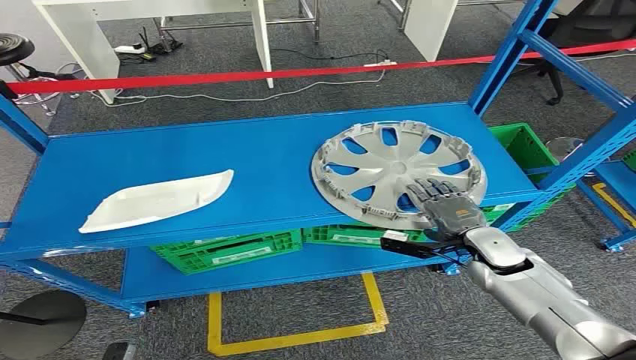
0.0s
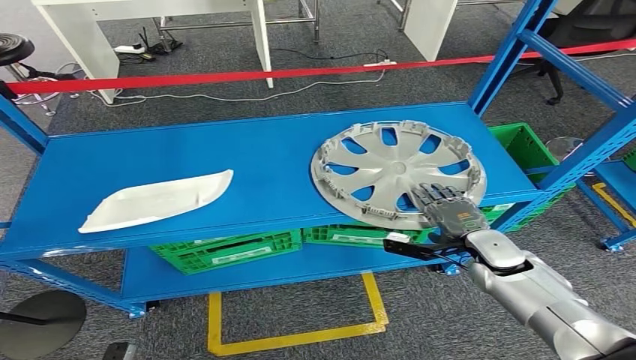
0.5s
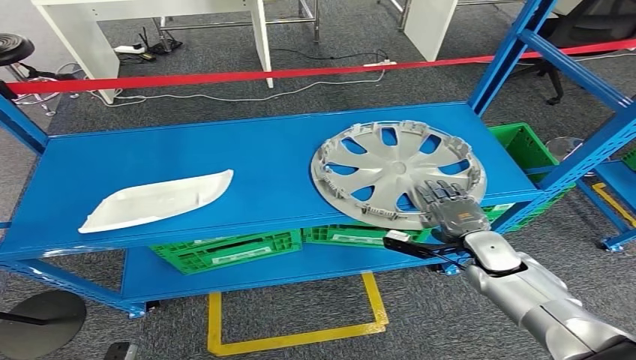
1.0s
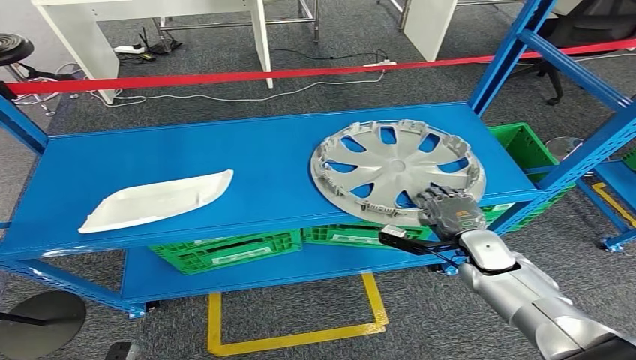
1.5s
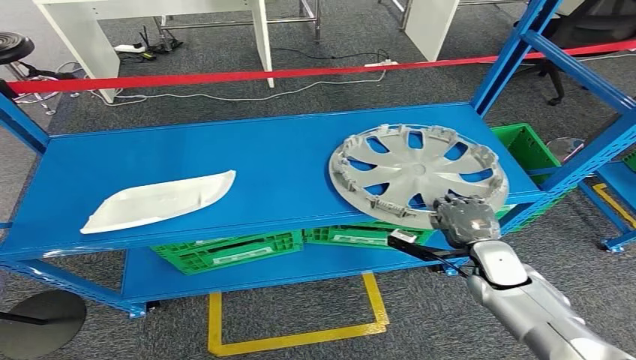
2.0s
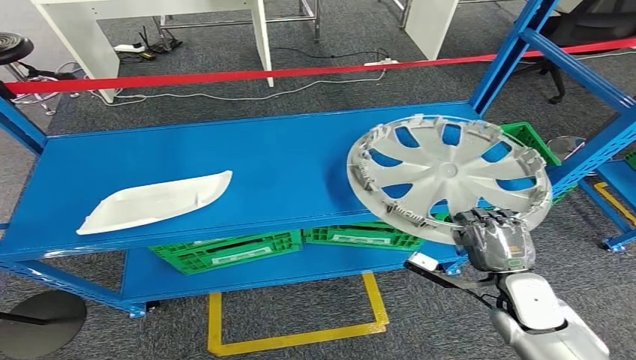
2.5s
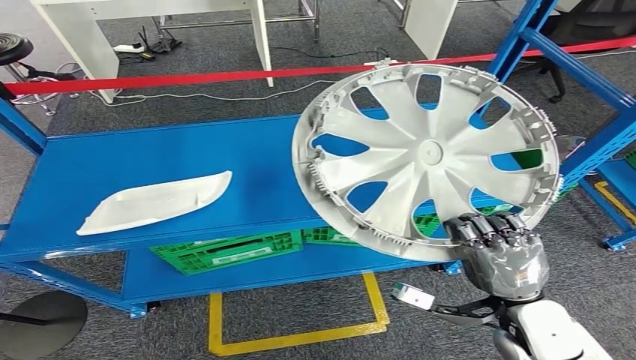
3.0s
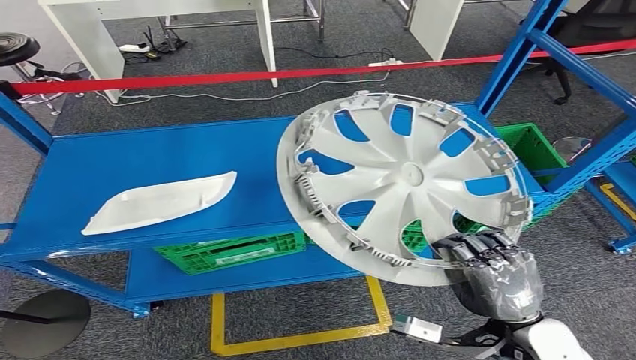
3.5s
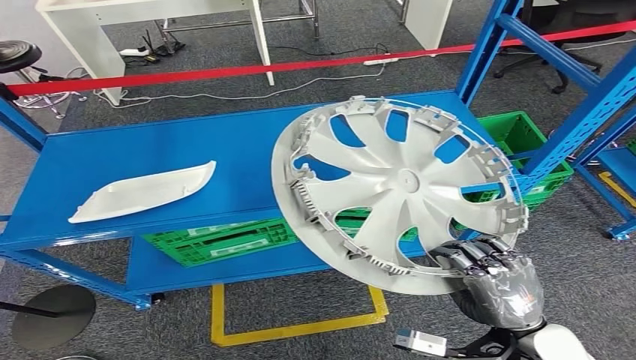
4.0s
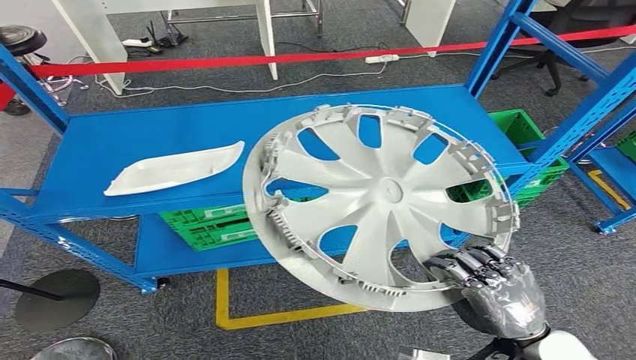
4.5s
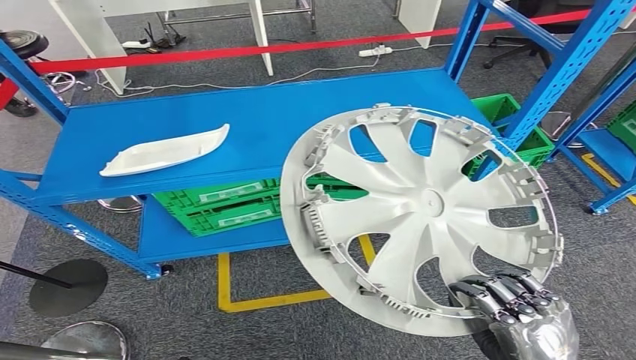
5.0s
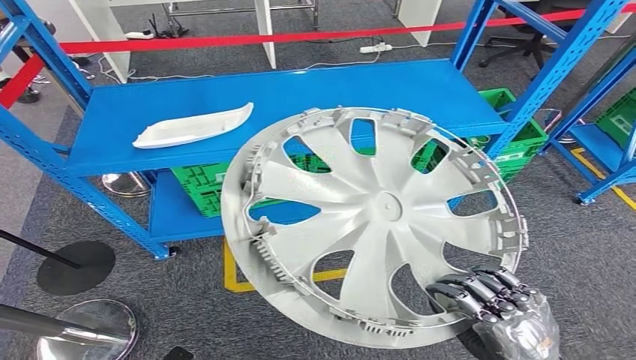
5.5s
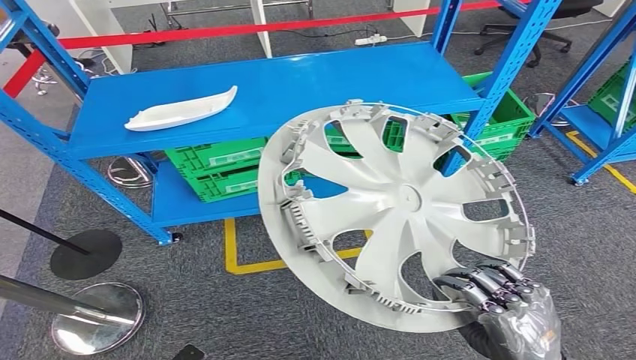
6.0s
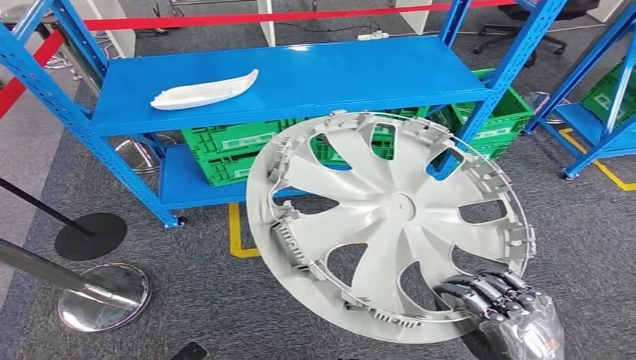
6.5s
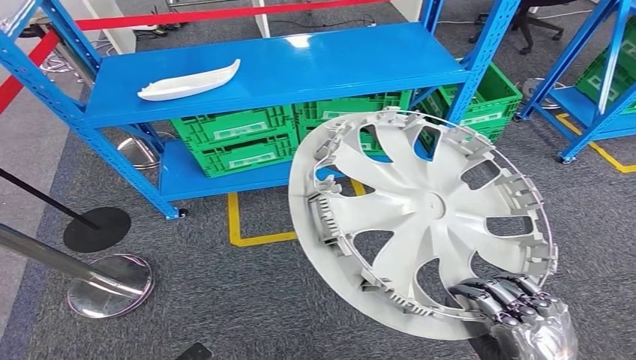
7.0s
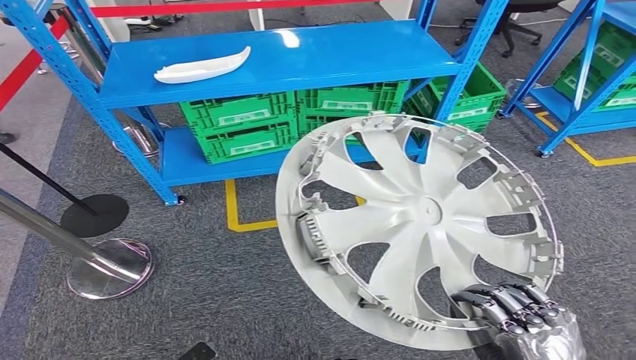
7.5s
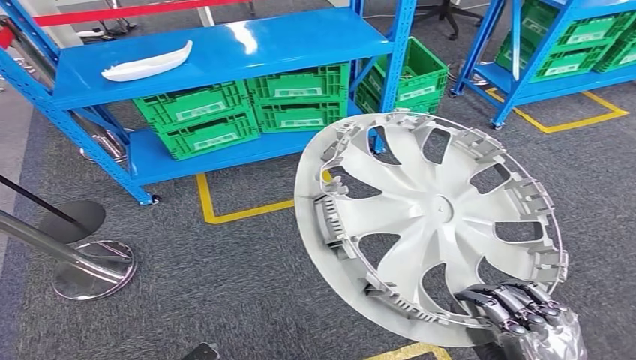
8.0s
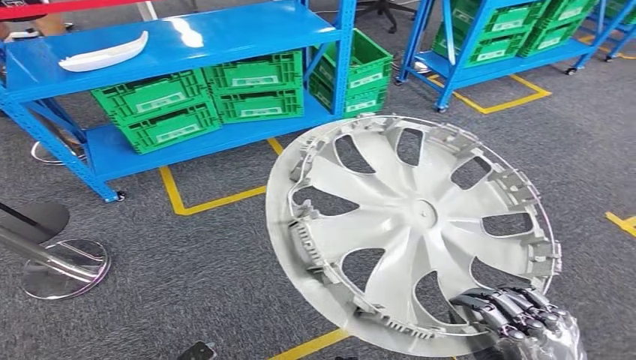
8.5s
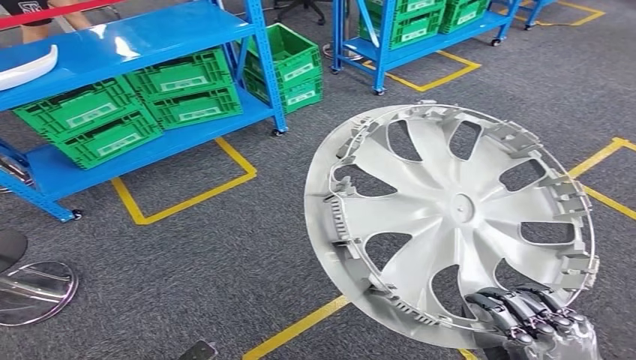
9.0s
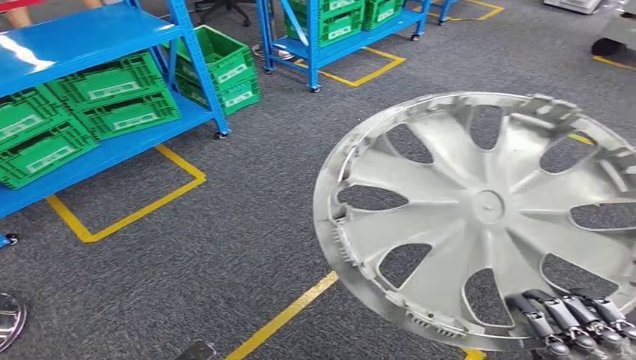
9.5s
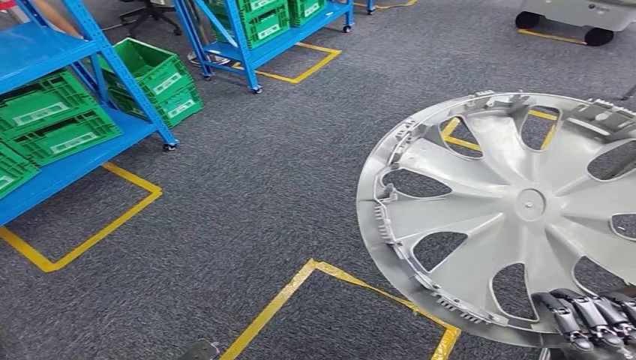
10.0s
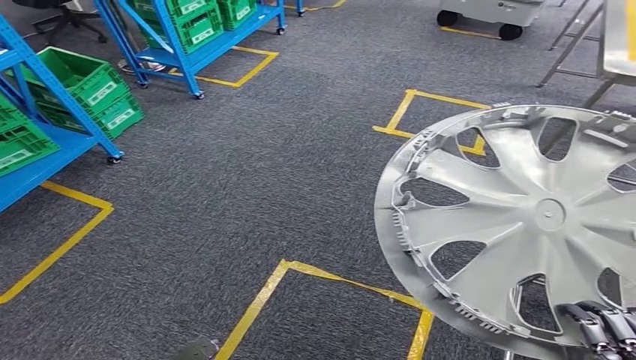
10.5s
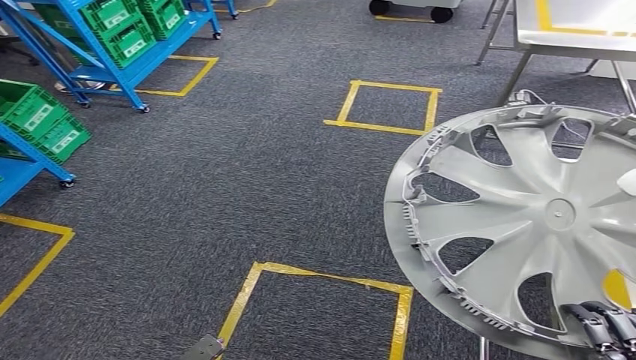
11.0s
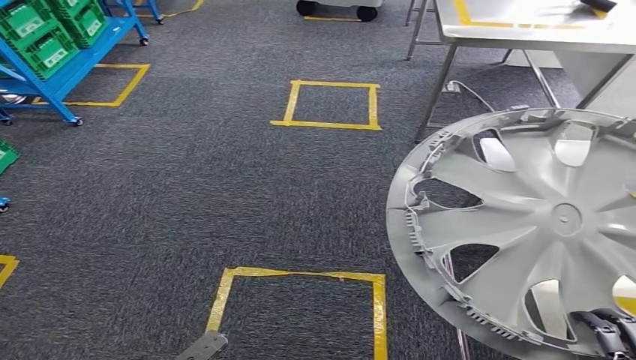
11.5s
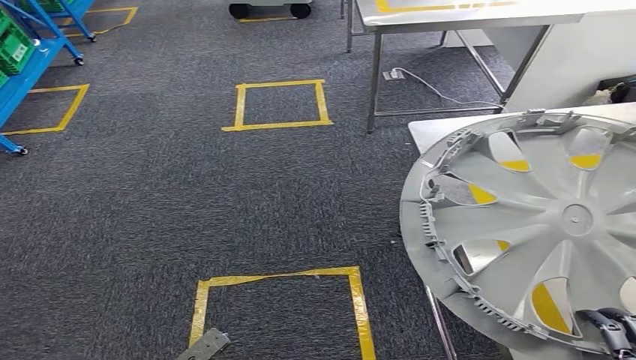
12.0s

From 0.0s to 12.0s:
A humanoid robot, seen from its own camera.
Step, from 0.0s to 4.0s: Pick up the small parts from the shelf.

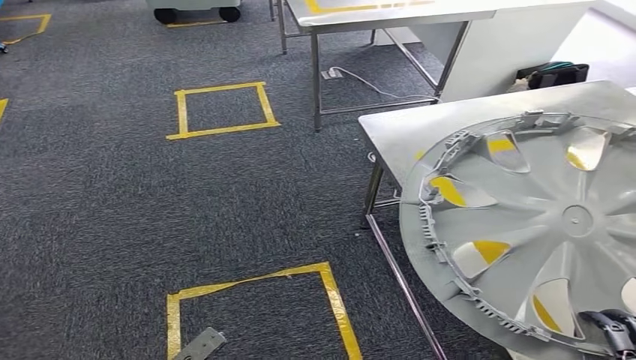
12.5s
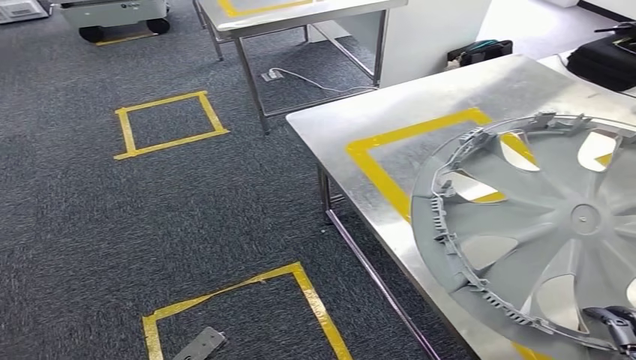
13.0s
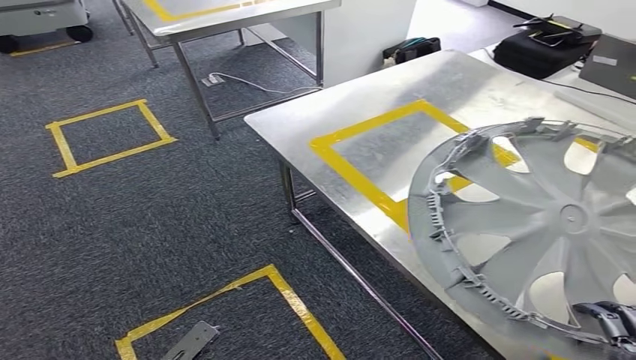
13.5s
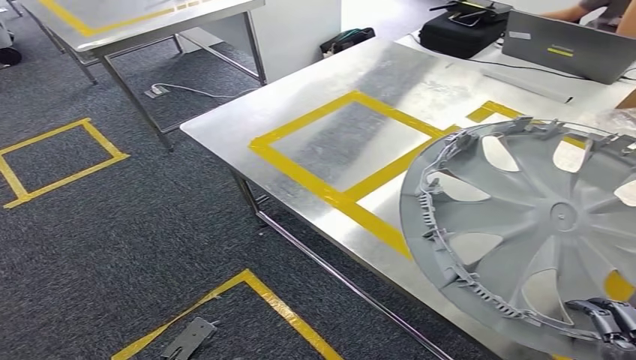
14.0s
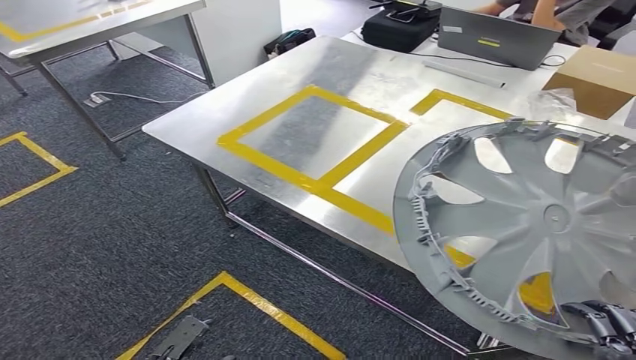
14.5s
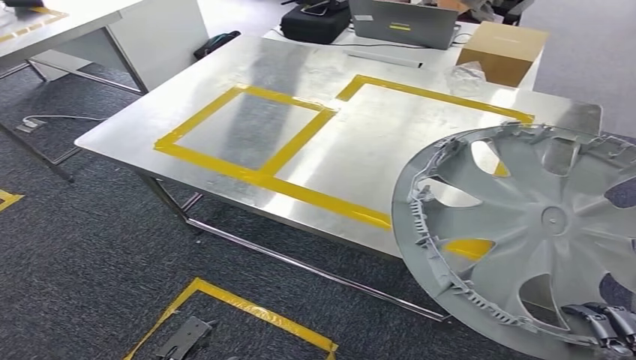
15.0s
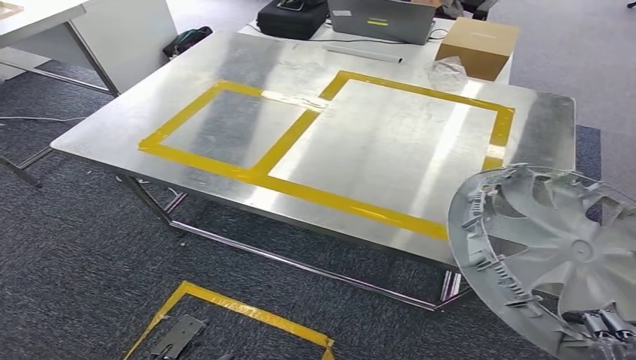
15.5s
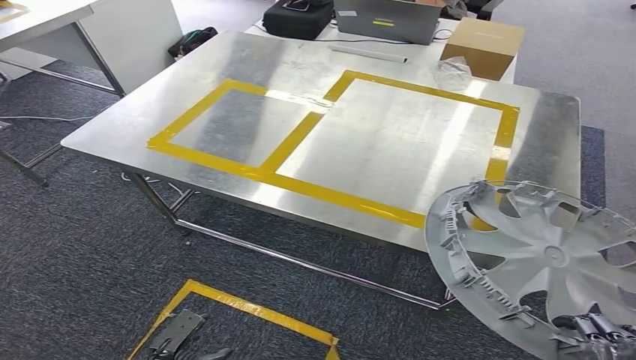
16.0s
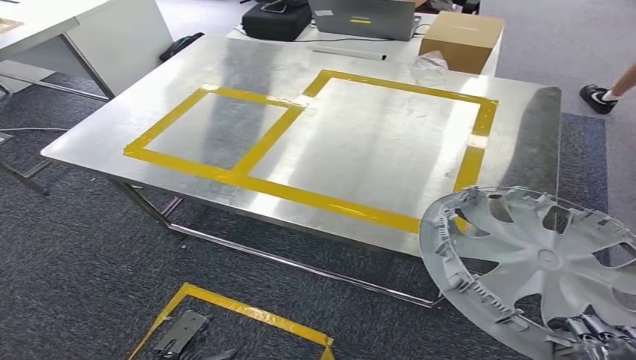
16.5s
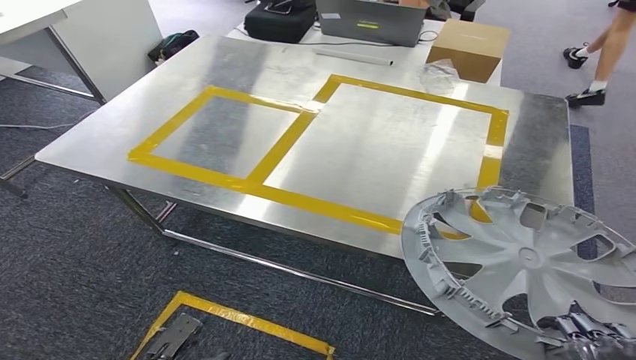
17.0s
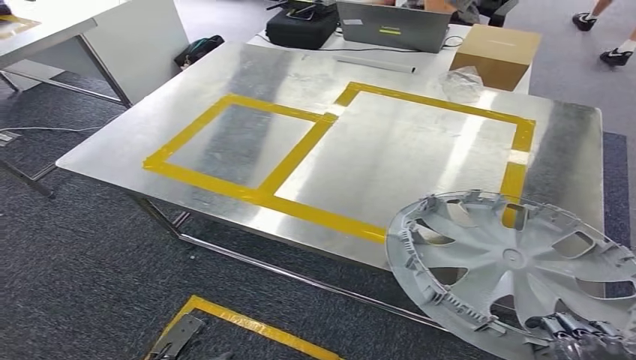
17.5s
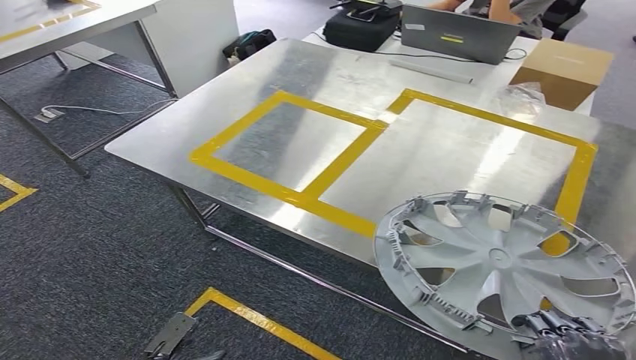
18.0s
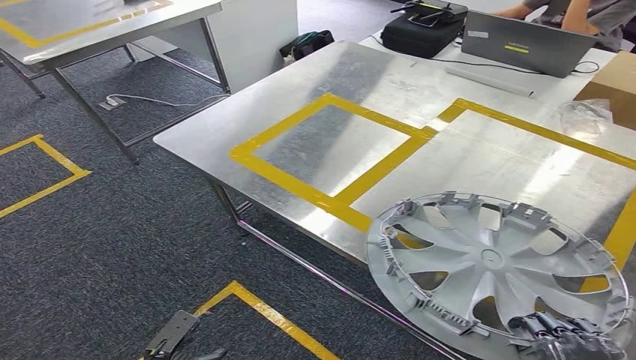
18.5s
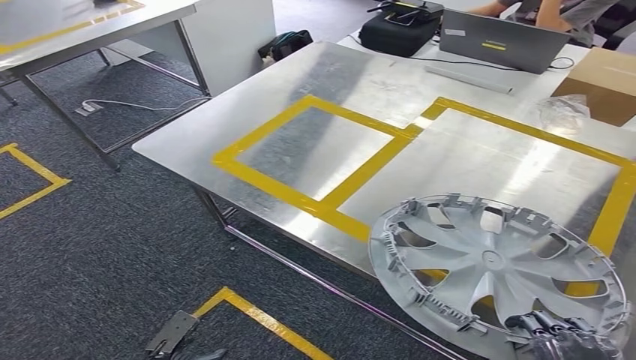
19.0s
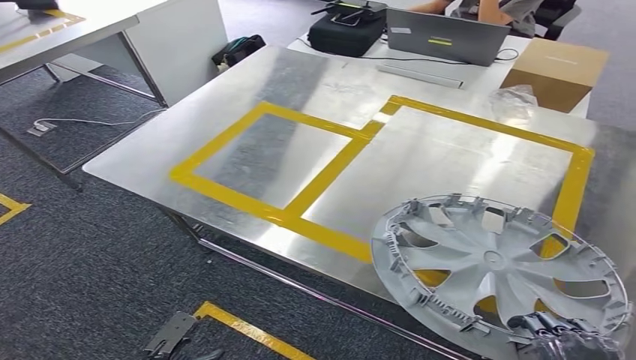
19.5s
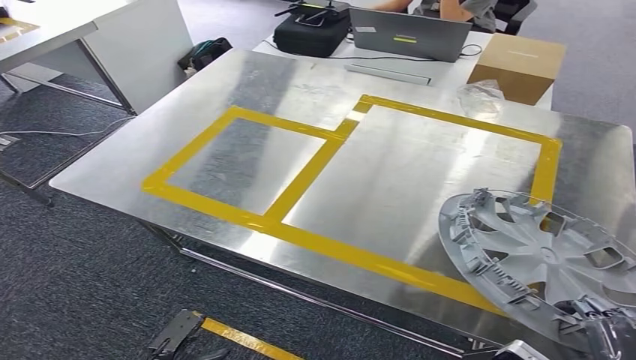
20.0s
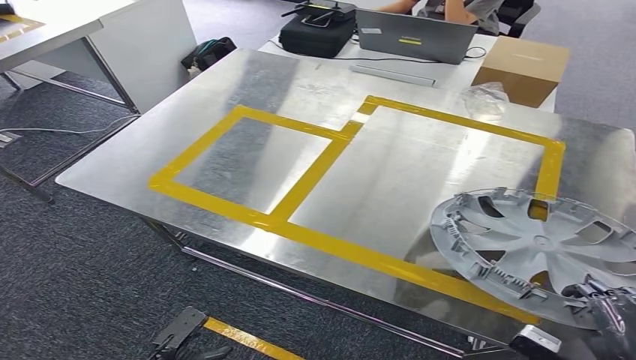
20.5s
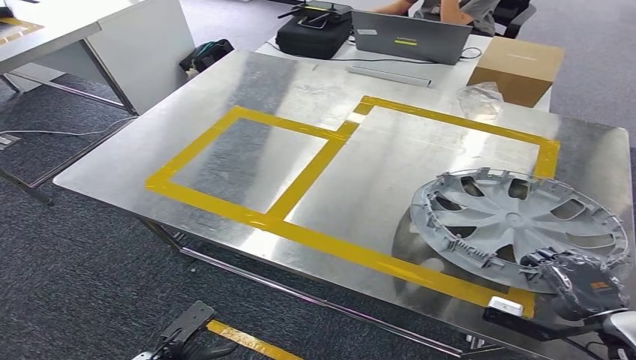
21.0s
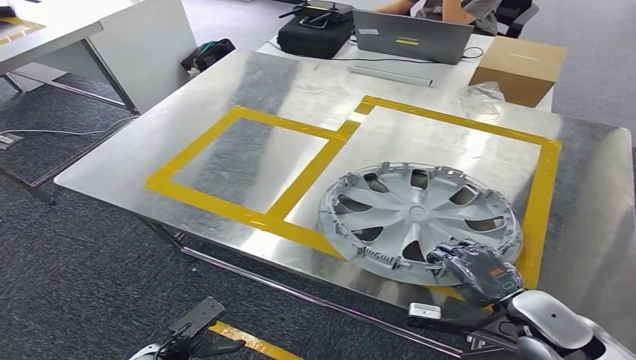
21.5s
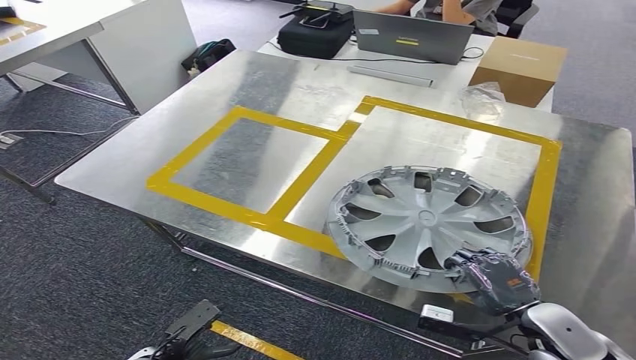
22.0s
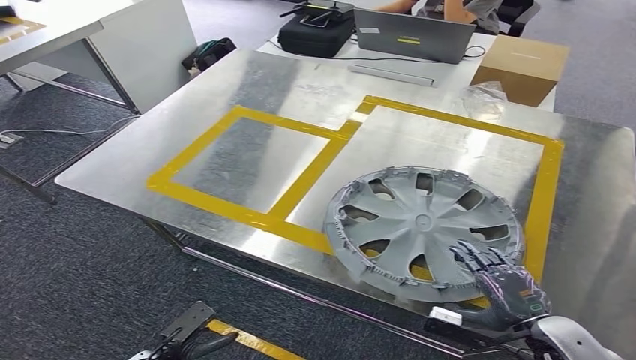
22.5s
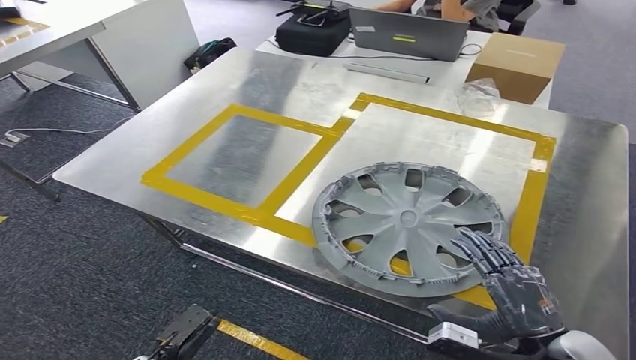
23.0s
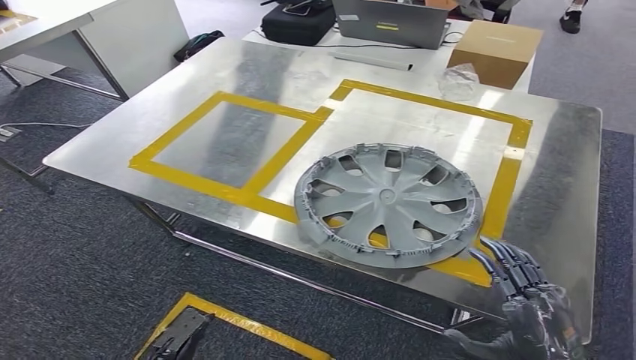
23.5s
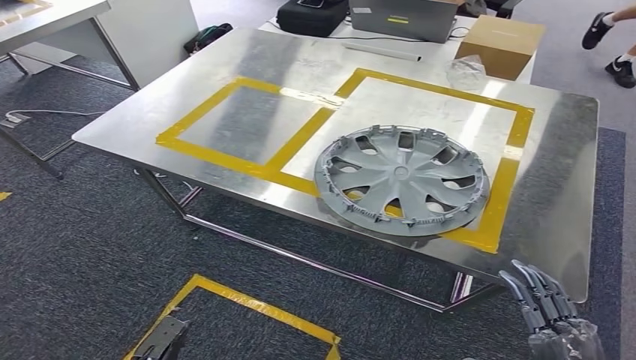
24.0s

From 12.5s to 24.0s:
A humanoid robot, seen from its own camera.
Step, from 14.5s to 23.5s: Insert the small parts into the corresponding slots on the workbench.
From 20.0s to 22.0s: The right hand is displaced forward and downward by some 15 cm.
